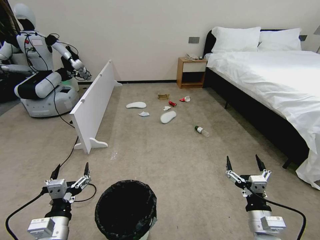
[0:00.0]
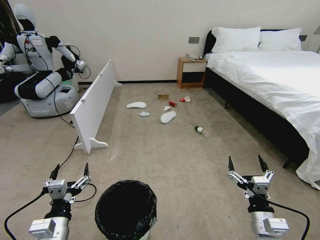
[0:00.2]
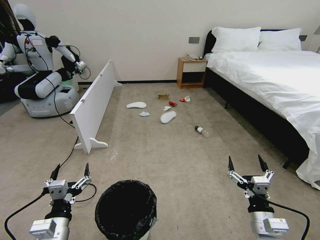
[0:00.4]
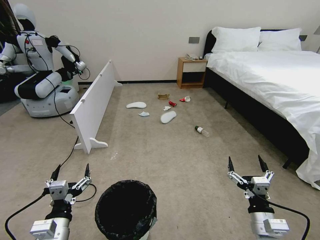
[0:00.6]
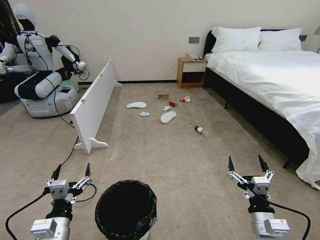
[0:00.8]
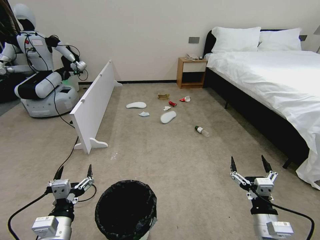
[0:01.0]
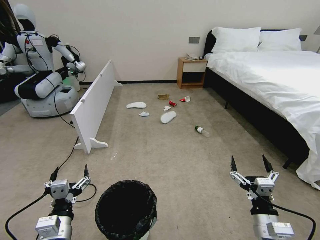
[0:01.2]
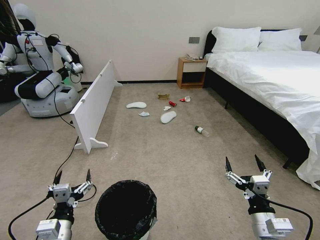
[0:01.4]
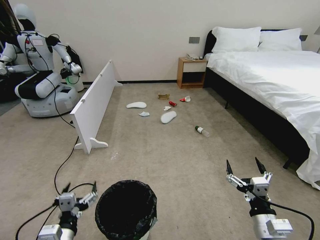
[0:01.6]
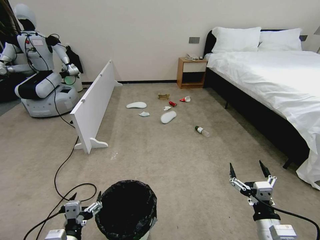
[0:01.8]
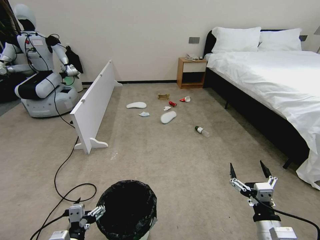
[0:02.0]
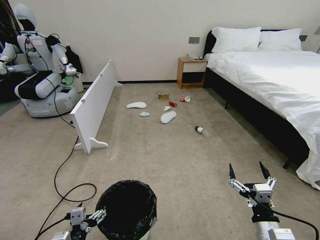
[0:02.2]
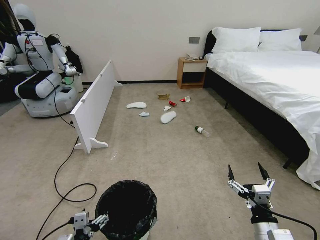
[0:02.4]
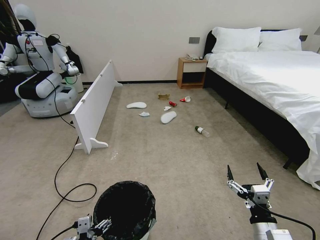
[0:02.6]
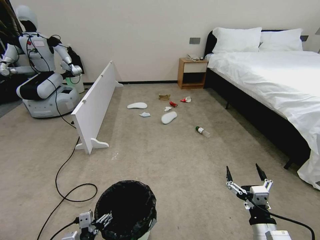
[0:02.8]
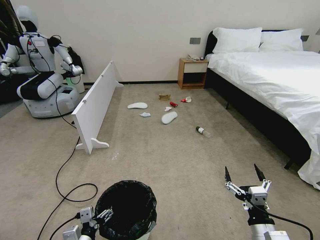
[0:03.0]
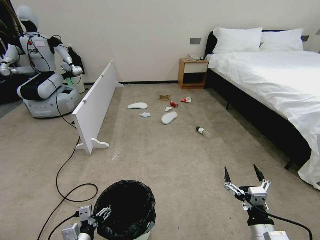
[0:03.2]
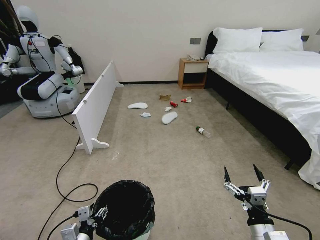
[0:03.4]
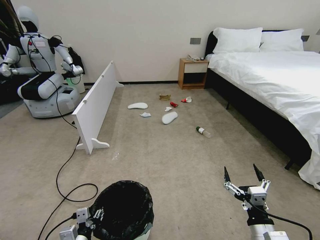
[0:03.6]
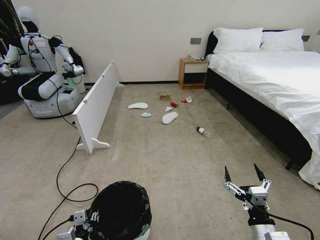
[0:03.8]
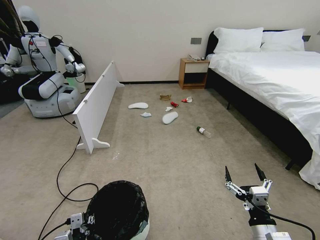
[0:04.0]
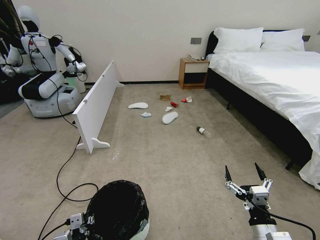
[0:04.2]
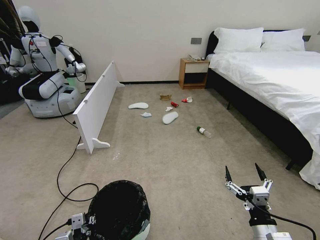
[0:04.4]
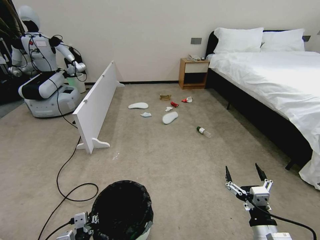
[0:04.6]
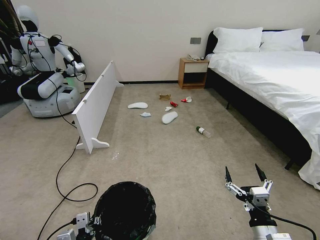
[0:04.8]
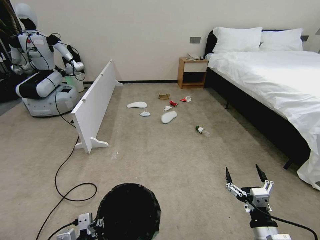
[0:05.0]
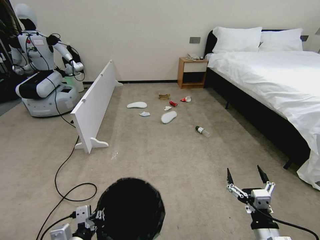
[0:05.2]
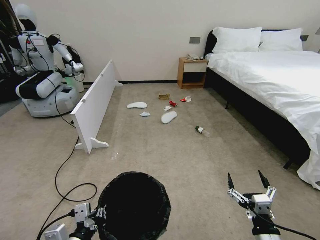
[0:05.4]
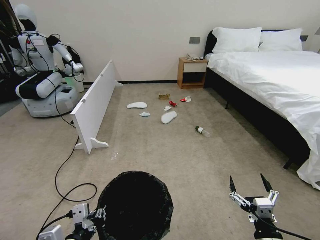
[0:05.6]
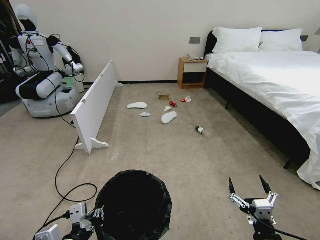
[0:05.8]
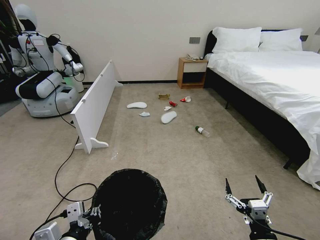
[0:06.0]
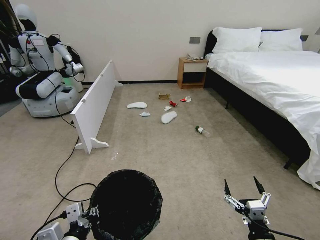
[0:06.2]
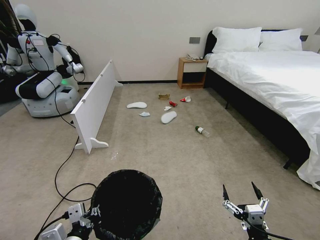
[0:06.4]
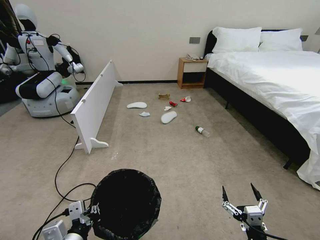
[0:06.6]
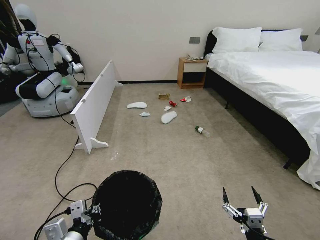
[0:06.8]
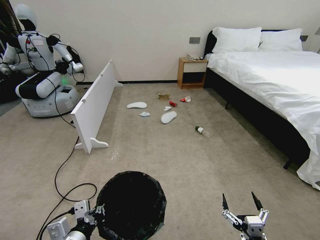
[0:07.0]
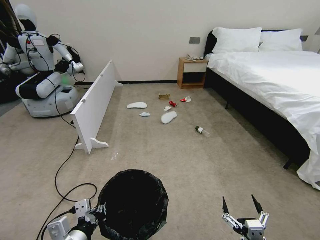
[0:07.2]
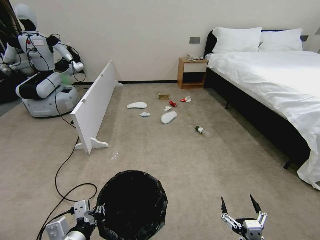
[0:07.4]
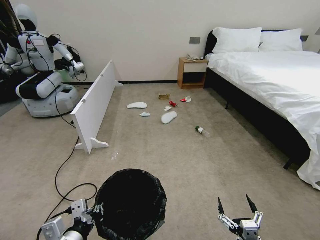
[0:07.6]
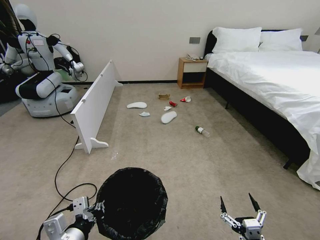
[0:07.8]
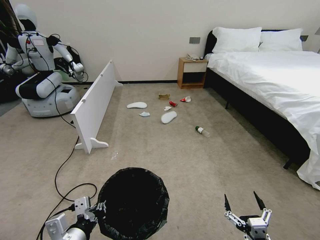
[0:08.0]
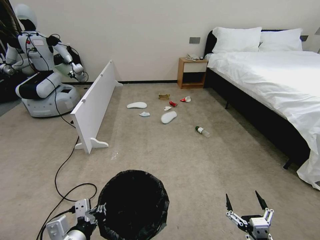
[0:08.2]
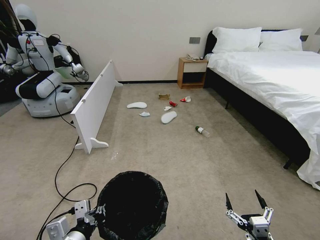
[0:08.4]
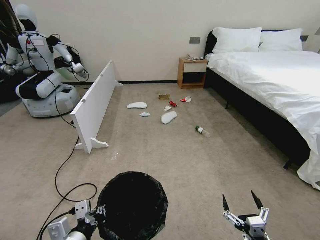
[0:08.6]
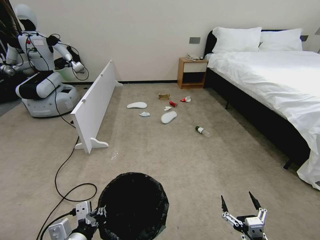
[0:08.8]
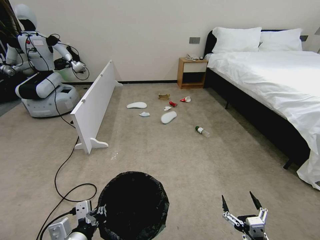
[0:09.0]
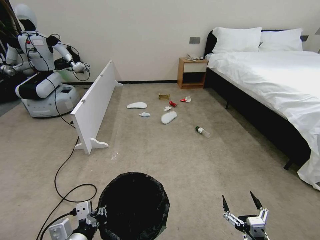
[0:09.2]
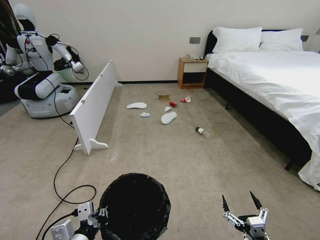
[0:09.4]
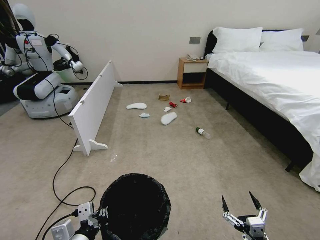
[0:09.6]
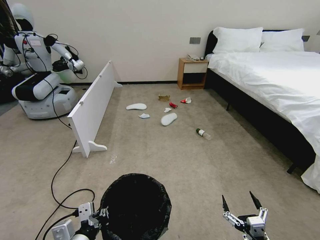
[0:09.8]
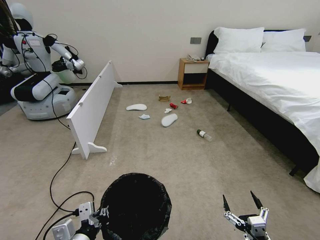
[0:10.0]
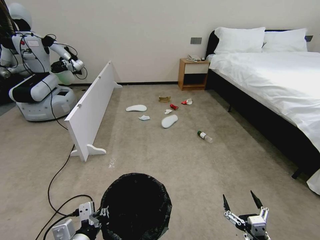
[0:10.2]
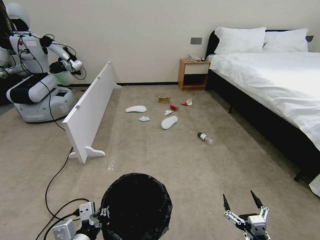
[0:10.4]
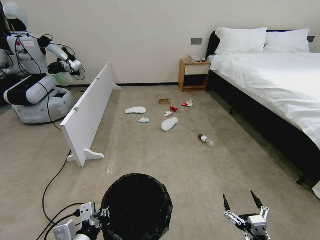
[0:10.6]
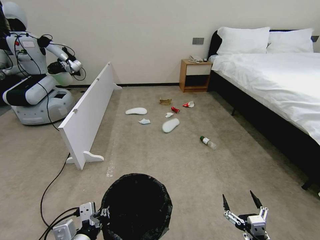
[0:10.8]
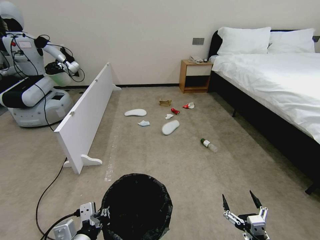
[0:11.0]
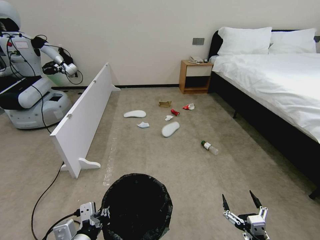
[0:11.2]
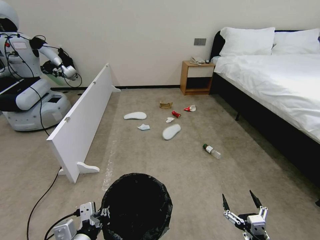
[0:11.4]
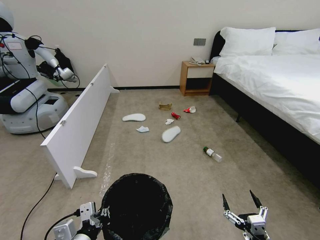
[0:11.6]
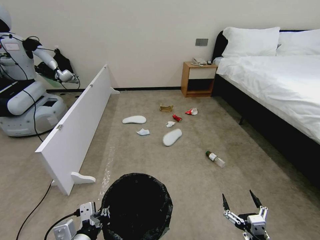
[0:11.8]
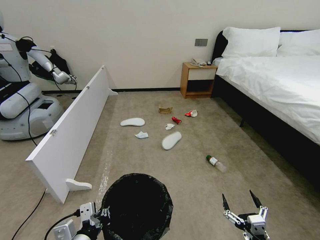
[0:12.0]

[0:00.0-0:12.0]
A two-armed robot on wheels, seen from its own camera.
Task of the whole recording: Pick up the trash bin, then pick up the garbage from the floor and place it into the trash bin.
0:01.6 to 0:03.0: The left gripper travels downward by roughly 5 cm.
0:03.0 to 0:04.4: The left gripper closes its fingers.
0:04.4 to 0:06.0: The left gripper moves upward, about 15 cm.
0:06.0 to 0:07.6: The right gripper changes place by about 5 cm.
0:07.6 to 0:09.0: The grippers stay close to where they were, moving slightly.
0:09.0 to 0:10.4: Both grippers stay put.

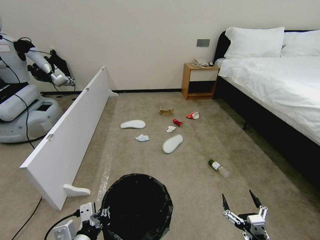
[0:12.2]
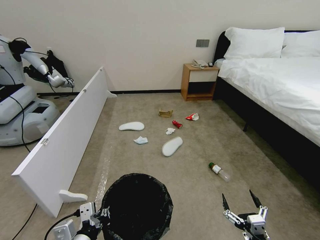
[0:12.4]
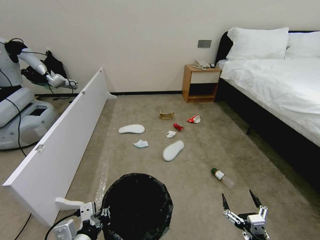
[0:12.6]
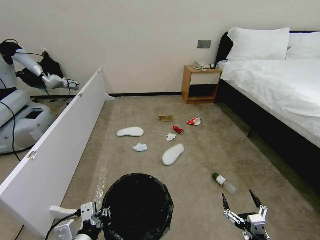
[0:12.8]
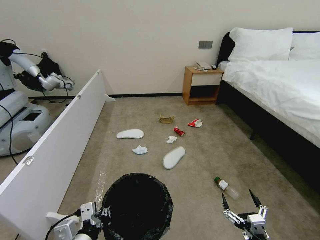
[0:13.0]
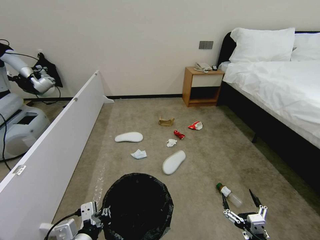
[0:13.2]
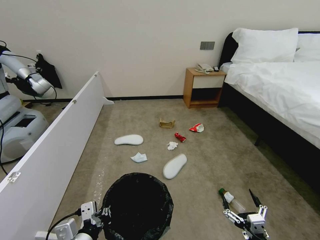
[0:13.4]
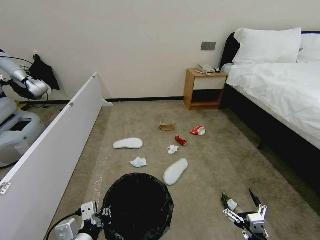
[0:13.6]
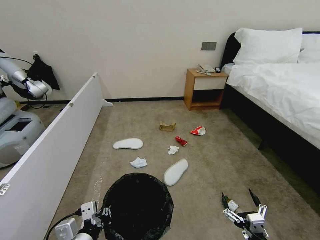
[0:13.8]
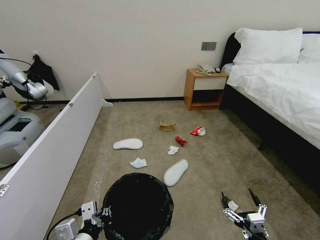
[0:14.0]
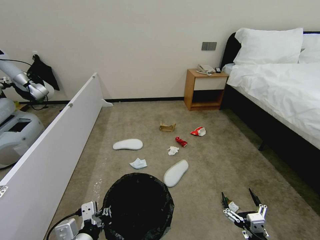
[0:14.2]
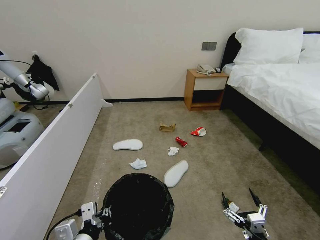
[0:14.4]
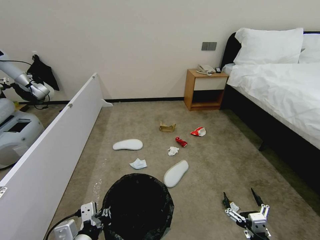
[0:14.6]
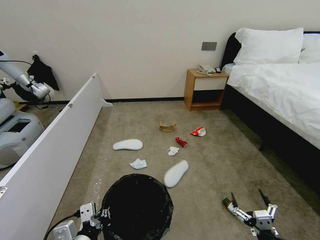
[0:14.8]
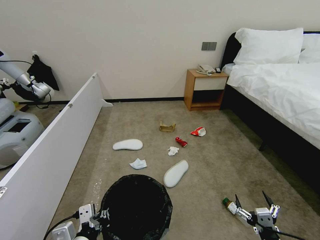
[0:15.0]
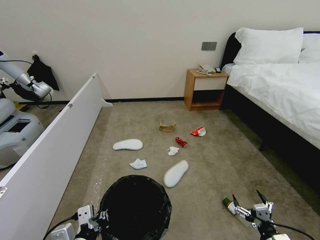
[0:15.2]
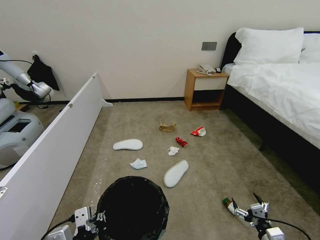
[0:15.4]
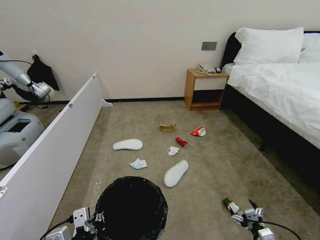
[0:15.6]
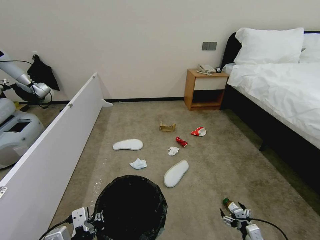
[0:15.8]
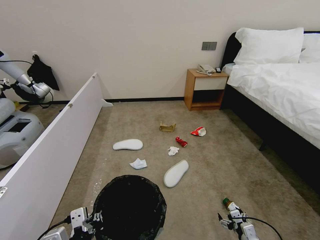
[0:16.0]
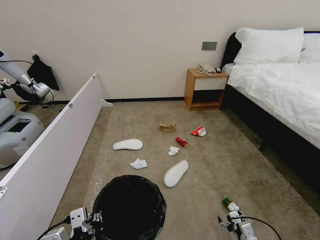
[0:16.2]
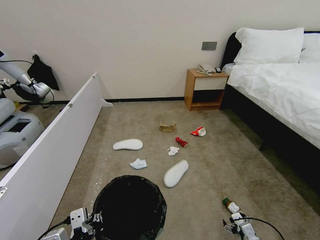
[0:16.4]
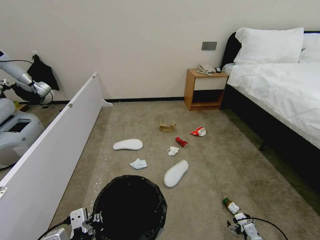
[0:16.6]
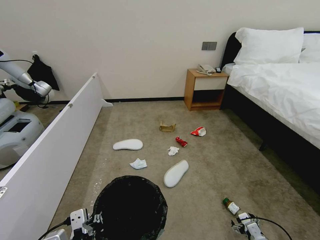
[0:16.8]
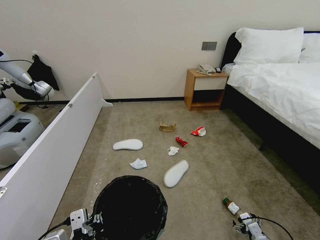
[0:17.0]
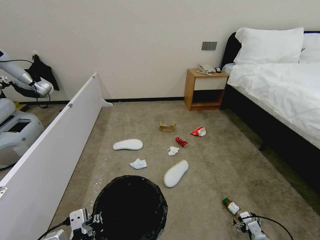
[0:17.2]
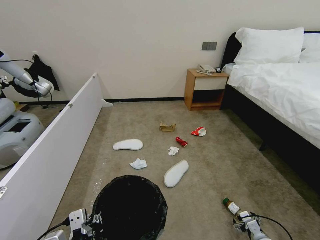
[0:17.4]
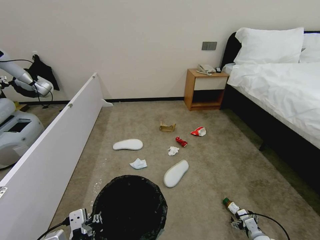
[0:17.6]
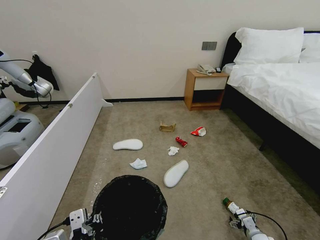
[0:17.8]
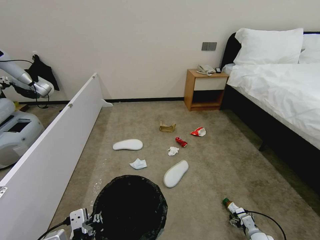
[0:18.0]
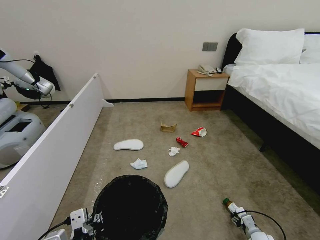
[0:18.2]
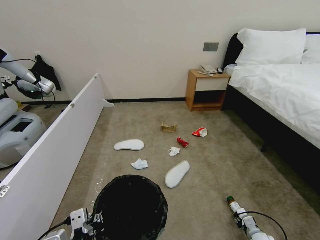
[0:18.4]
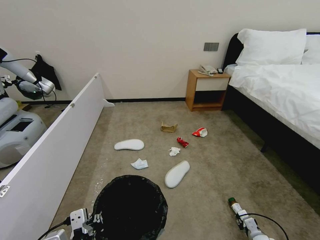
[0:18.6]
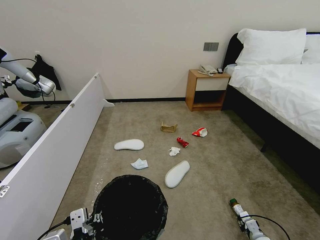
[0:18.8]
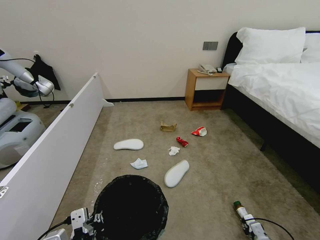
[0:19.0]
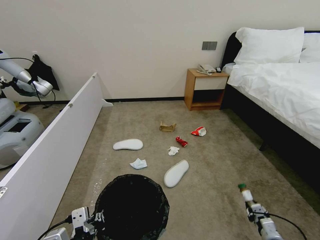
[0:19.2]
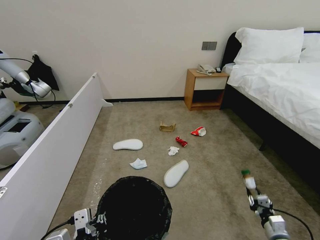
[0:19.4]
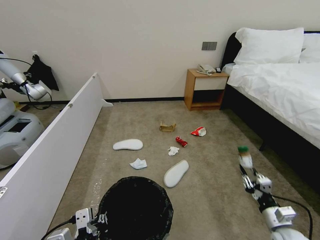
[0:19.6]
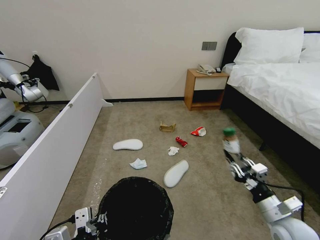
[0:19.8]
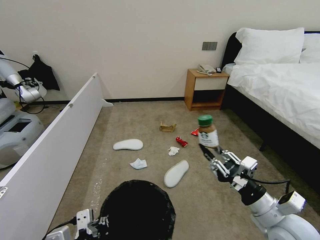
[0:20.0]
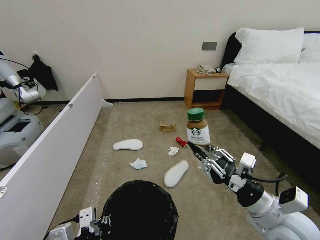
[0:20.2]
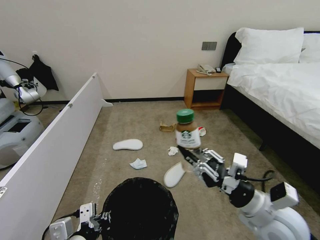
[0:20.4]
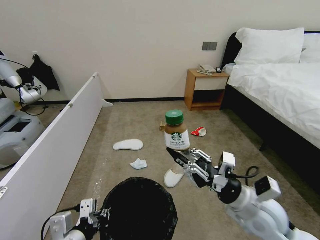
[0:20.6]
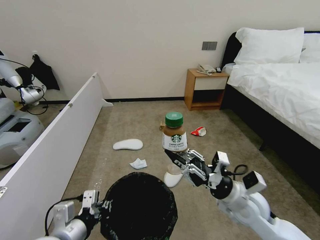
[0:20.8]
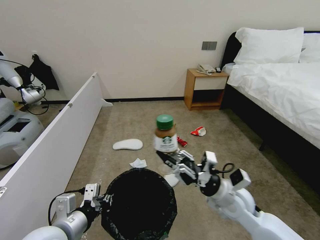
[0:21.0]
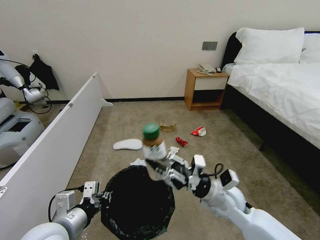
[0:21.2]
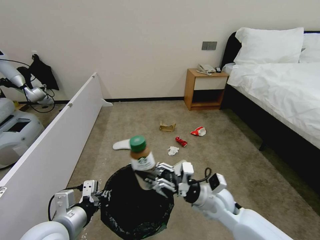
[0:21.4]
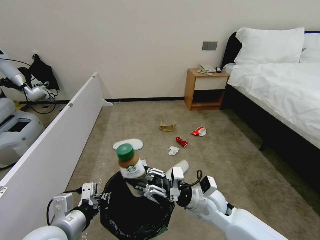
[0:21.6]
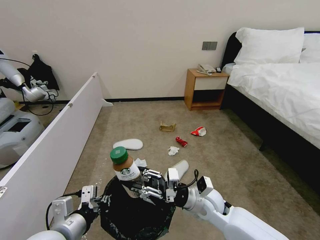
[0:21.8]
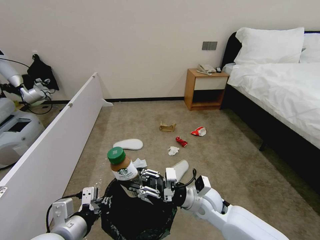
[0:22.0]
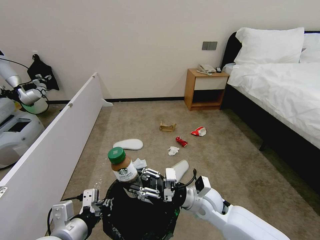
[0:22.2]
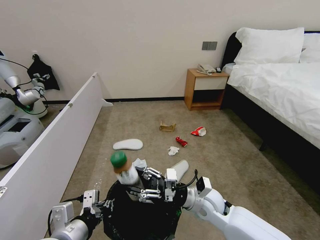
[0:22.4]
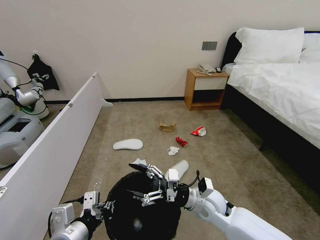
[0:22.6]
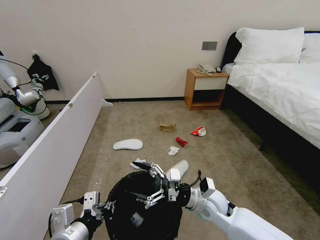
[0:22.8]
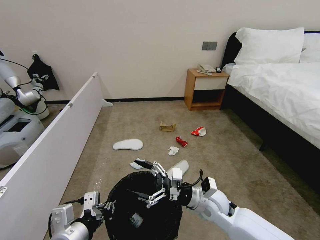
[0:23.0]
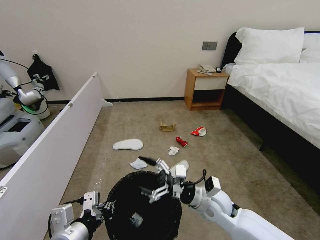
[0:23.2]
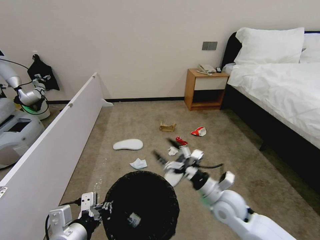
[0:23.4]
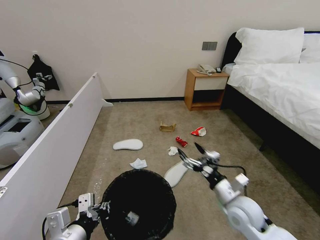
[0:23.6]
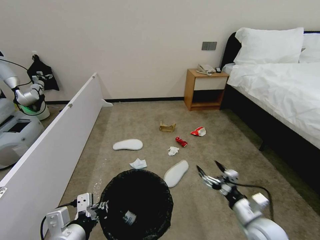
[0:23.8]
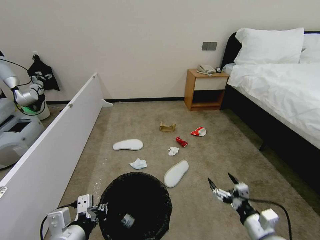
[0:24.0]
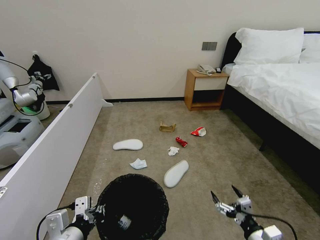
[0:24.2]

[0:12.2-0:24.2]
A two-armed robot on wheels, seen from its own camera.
Task of the whole recording: Pick up the trash bin, then pick up the garbage from the floor and place it into the trash bin.
0:13.8 to 0:15.2: The right gripper is displaced to the right by about 5 cm.
0:15.2 to 0:16.6: The right gripper shifts roughly 15 cm downward and forward.
0:16.6 to 0:18.2: The right gripper moves roughly 5 cm.
0:18.2 to 0:19.8: The right gripper is displaced upward by some 20 cm, and closes its fingers.
0:19.8 to 0:21.2: The left gripper moves forward, about 10 cm. The right gripper moves to the left and forward, some 20 cm.
0:21.2 to 0:22.6: The right gripper changes place by roughly 5 cm, and opens its fingers.
0:22.6 to 0:24.2: The right gripper is displaced to the right and backward by roughly 25 cm.
